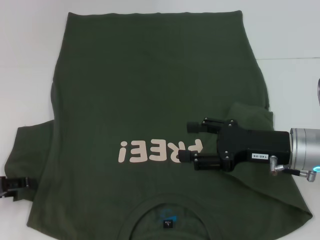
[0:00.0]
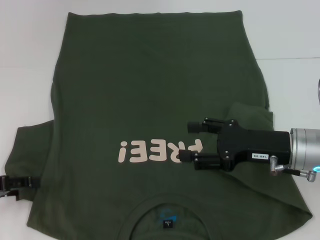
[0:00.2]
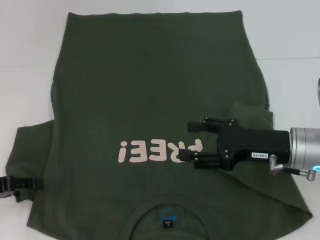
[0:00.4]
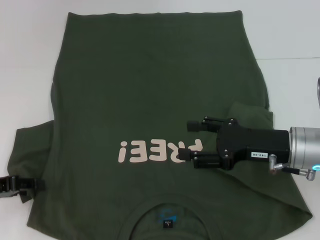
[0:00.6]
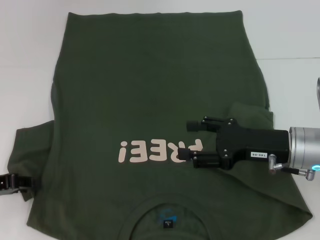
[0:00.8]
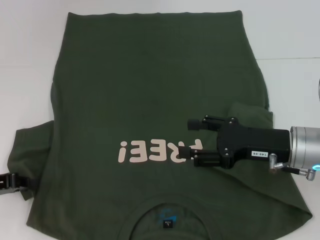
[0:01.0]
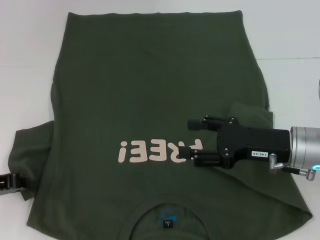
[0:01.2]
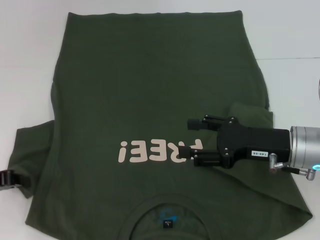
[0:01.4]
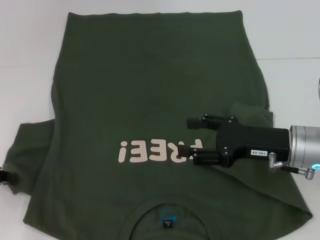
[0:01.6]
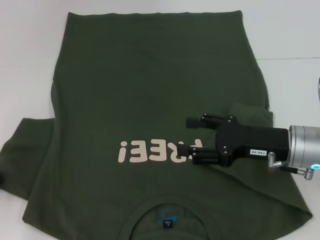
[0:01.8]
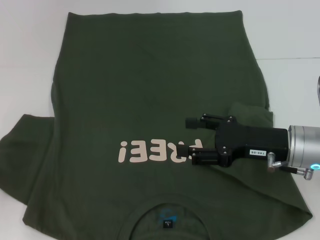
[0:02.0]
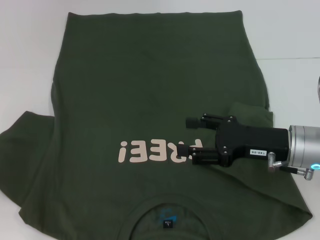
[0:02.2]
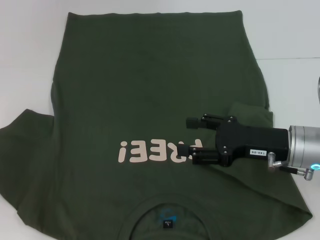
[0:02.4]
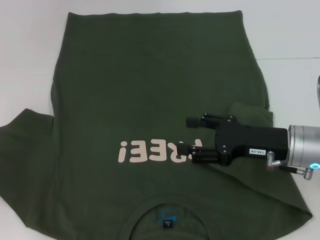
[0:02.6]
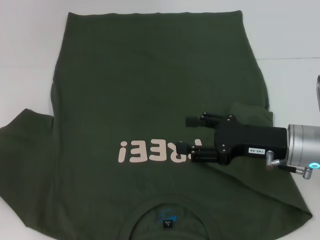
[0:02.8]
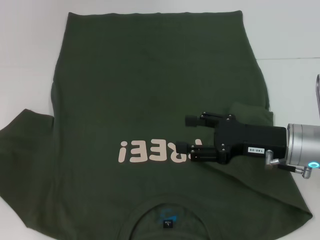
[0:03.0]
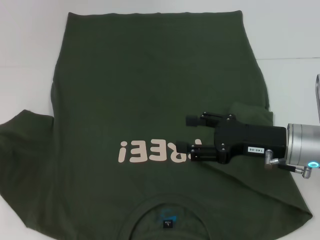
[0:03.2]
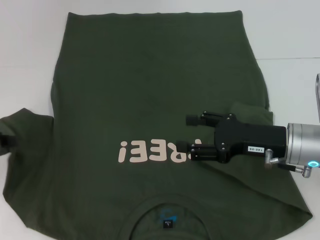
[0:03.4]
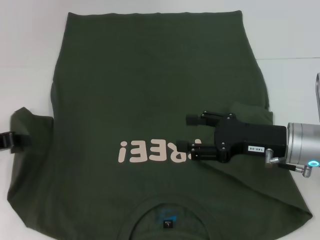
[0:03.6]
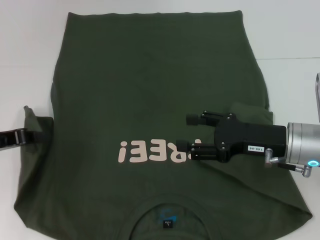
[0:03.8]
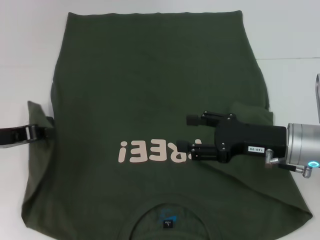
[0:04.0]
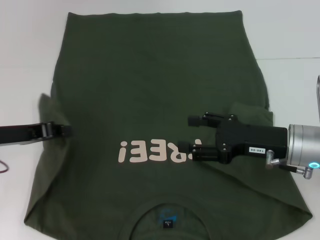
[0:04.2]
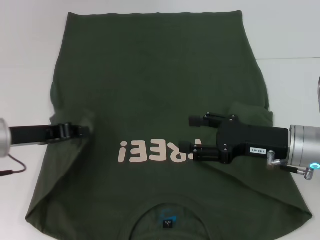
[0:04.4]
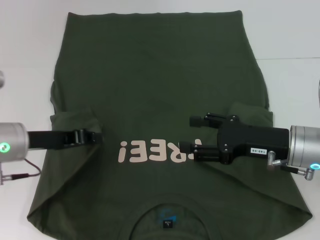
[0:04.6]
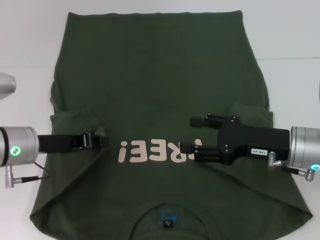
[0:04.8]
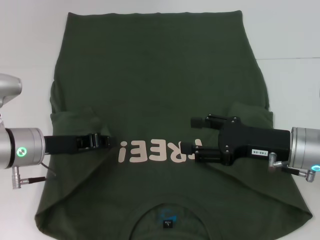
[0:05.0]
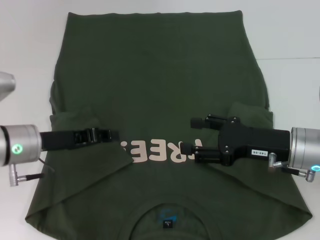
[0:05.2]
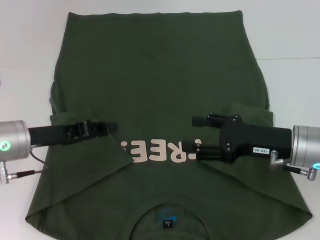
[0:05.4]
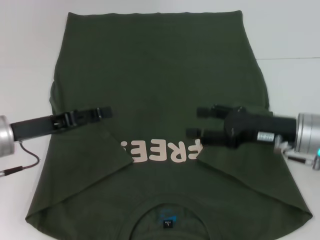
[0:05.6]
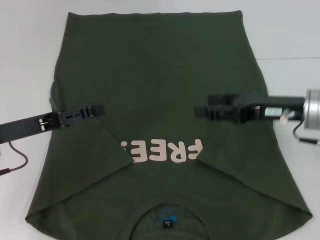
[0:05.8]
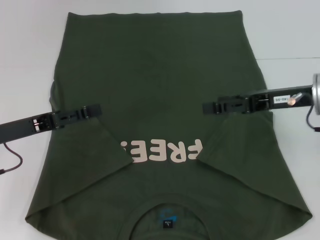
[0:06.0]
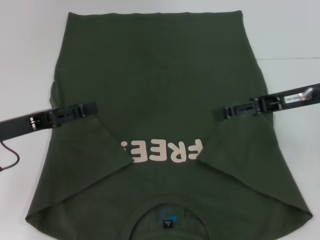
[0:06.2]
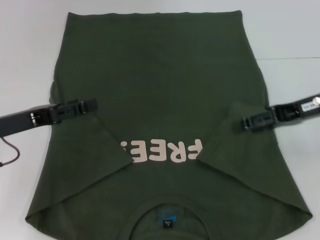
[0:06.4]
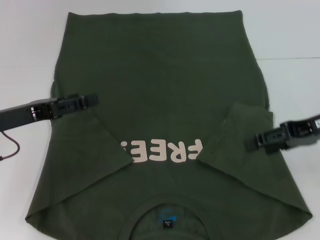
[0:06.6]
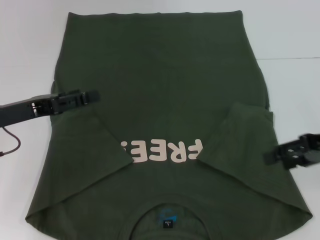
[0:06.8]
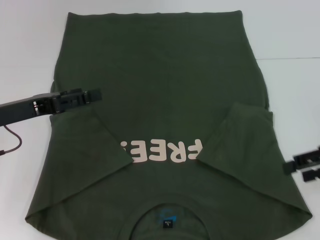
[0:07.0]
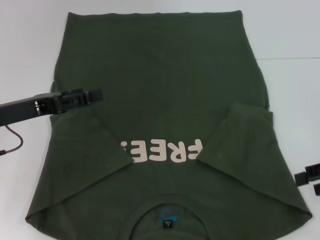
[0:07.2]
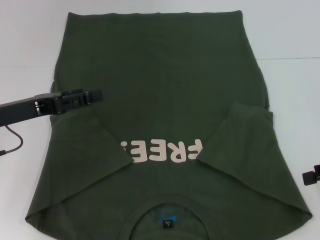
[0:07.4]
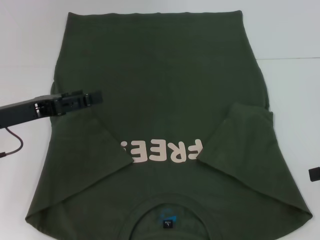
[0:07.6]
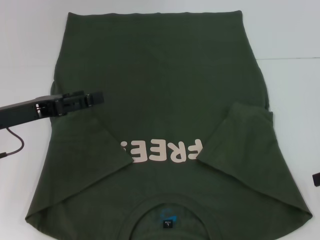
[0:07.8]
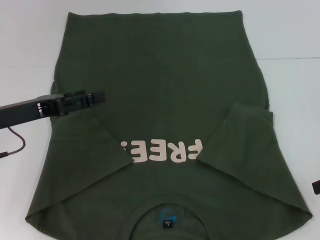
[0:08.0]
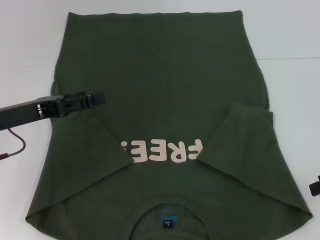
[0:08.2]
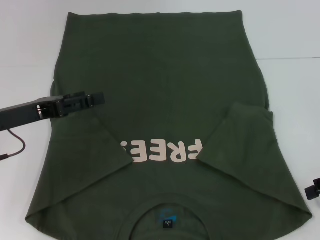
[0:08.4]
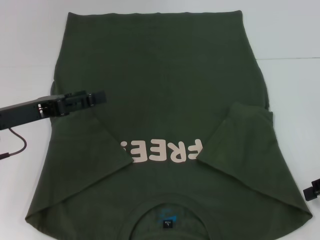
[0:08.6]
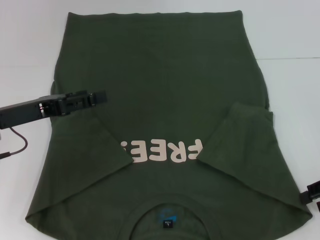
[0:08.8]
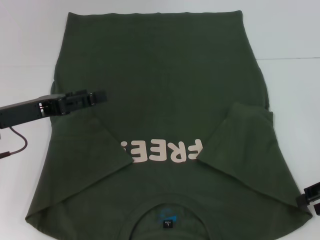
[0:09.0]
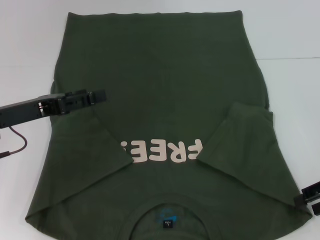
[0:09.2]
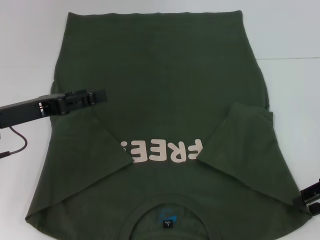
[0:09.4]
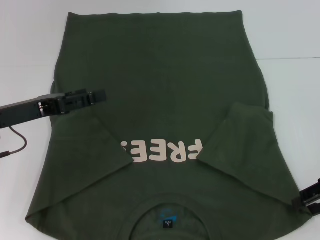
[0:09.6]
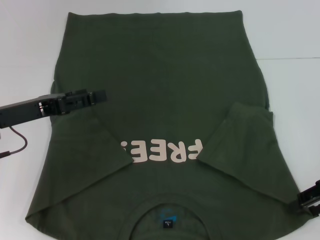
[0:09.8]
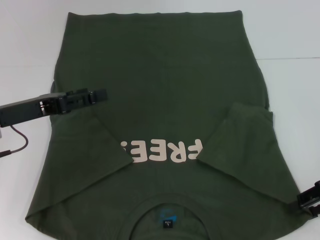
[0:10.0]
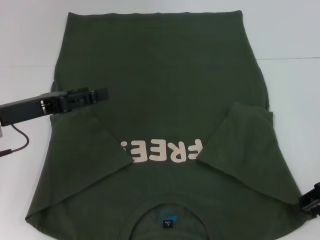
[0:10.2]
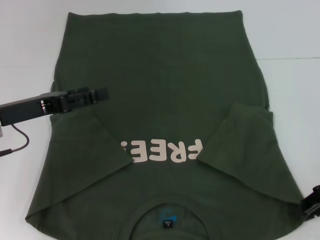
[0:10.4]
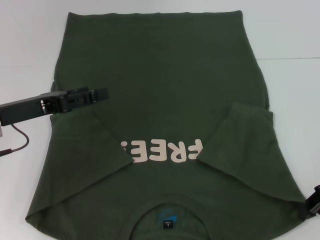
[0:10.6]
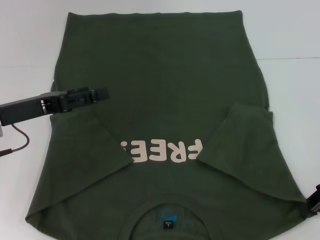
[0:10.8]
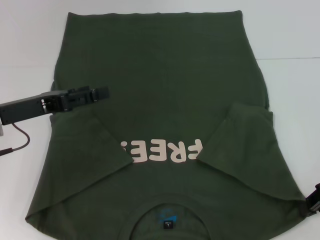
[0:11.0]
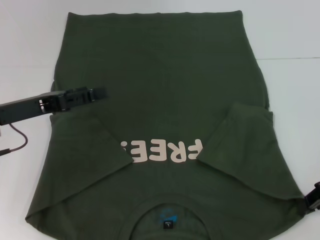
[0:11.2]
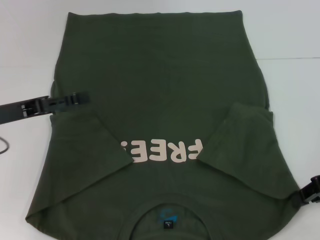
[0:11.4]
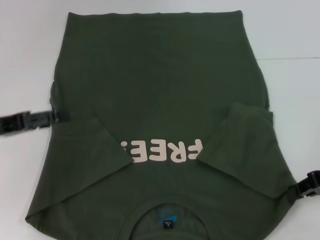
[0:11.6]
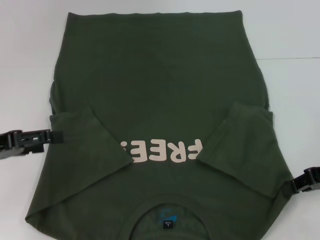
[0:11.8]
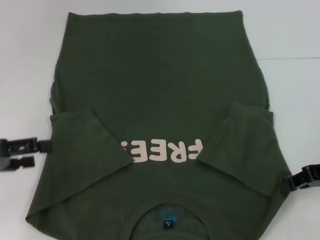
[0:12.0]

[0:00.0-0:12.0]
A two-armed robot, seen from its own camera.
Step, 0:00.0 to 0:05.2: Fold the bottom left sleeve with your left hand.
Step, 0:05.4 to 0:10.4: Grab the bottom right corner with your right hand.
0:00.0 to 0:01.6: The left gripper closes up.
0:01.6 to 0:03.0: There are only small adjustments of the grippers.
0:03.0 to 0:04.4: The left gripper moves to the right, about 10 cm.
0:04.4 to 0:06.0: The right gripper goes approximately 5 cm upward. Meanwhile the left gripper opens.
0:06.0 to 0:07.6: The right gripper heads to the right and backward, covering some 15 cm.
0:07.6 to 0:09.0: The grippers make only small movements.
0:09.0 to 0:10.4: The grippers make only small movements.
0:10.4 to 0:12.0: The left gripper is displaced to the left and backward by approximately 10 cm.

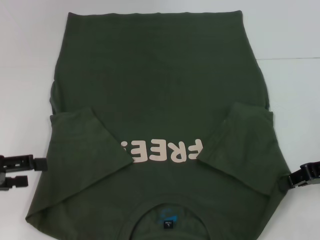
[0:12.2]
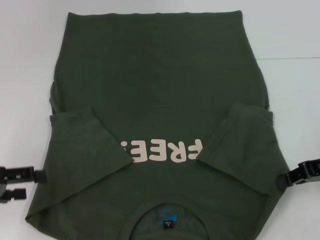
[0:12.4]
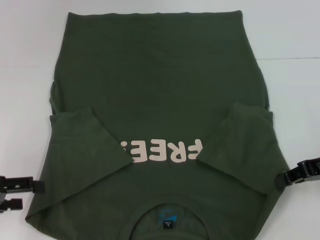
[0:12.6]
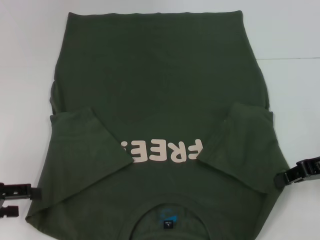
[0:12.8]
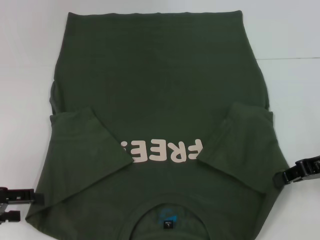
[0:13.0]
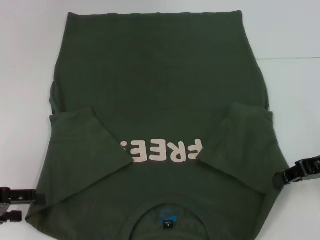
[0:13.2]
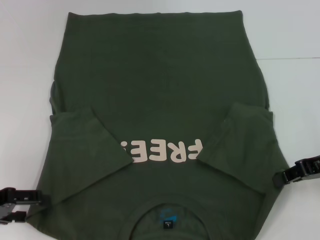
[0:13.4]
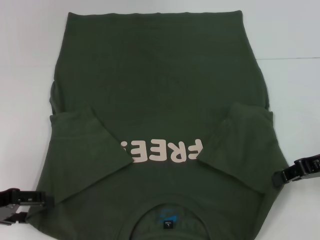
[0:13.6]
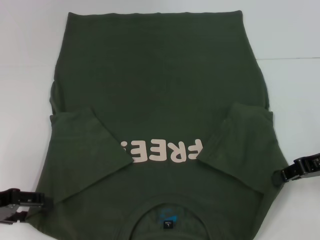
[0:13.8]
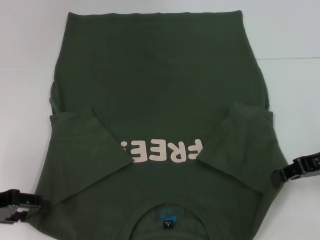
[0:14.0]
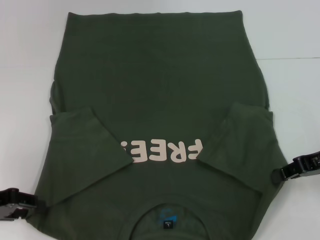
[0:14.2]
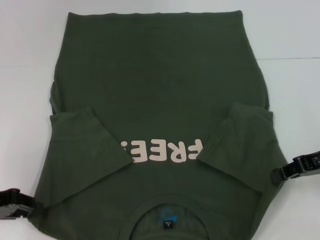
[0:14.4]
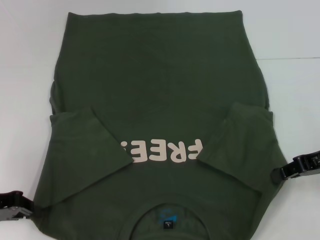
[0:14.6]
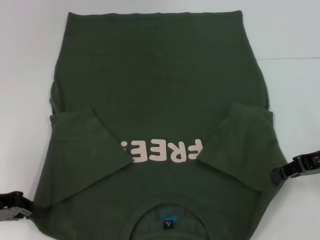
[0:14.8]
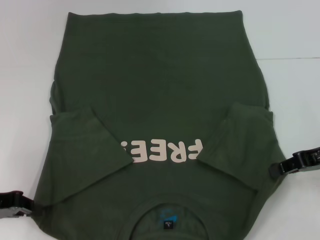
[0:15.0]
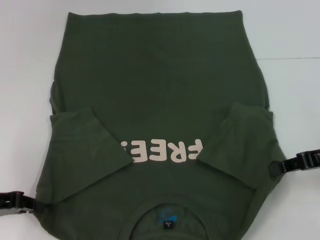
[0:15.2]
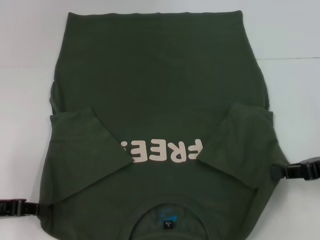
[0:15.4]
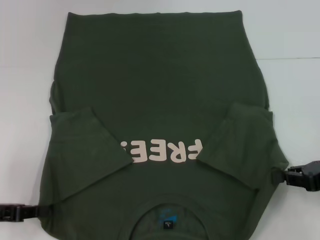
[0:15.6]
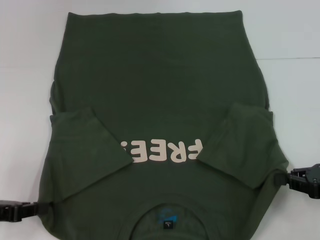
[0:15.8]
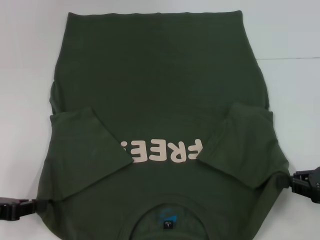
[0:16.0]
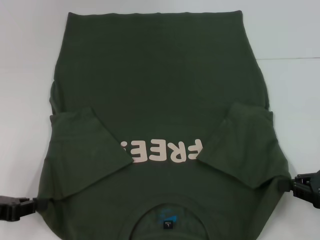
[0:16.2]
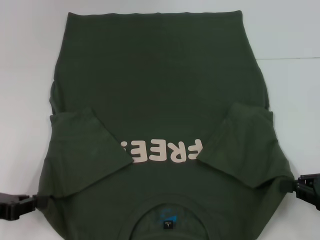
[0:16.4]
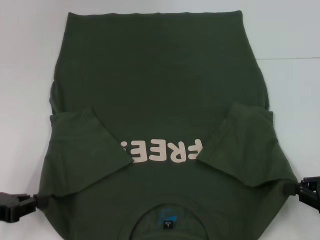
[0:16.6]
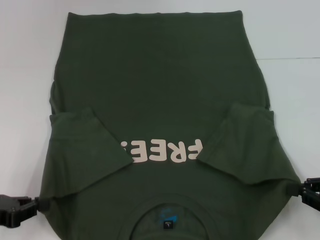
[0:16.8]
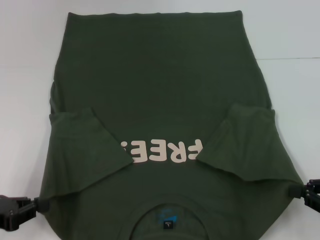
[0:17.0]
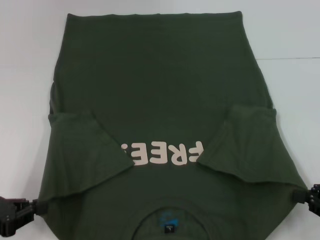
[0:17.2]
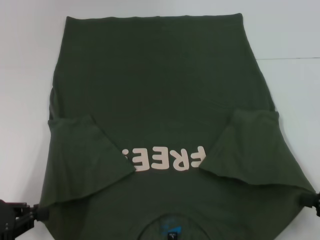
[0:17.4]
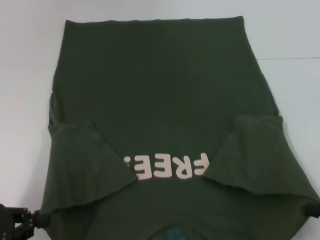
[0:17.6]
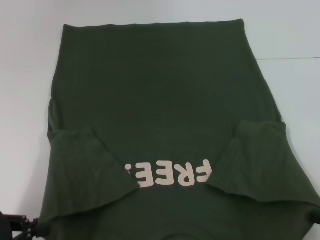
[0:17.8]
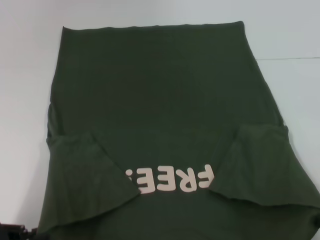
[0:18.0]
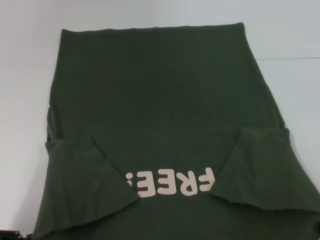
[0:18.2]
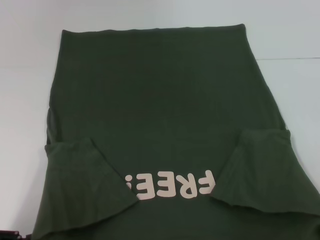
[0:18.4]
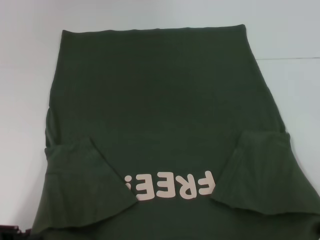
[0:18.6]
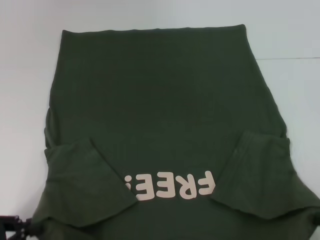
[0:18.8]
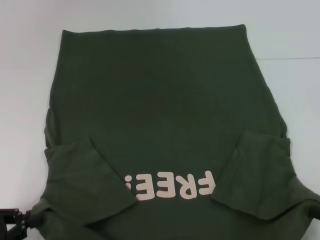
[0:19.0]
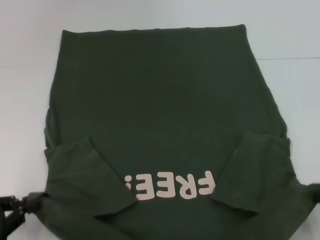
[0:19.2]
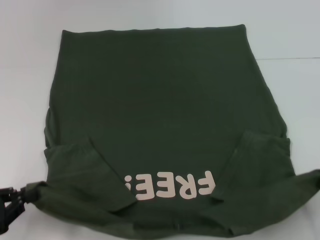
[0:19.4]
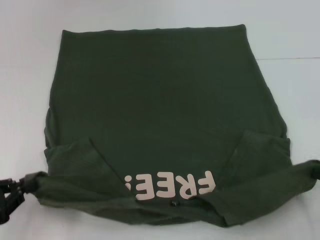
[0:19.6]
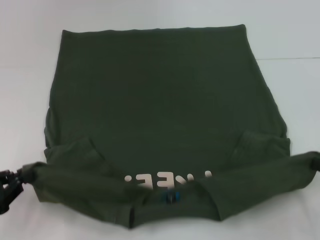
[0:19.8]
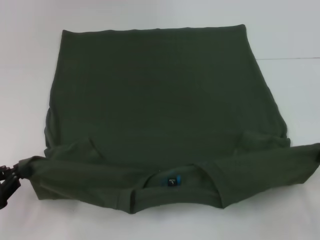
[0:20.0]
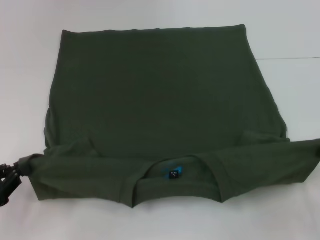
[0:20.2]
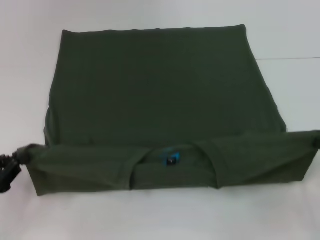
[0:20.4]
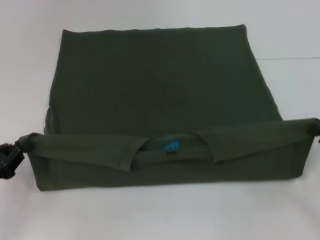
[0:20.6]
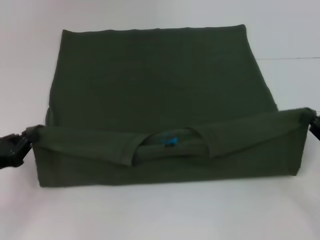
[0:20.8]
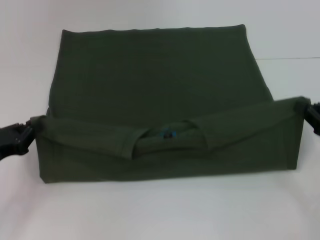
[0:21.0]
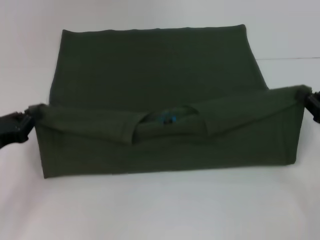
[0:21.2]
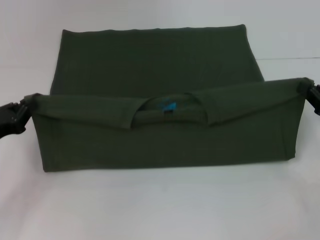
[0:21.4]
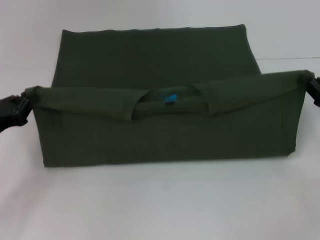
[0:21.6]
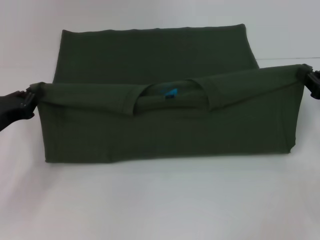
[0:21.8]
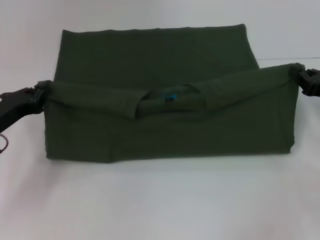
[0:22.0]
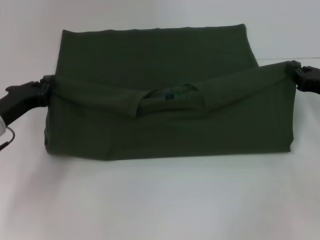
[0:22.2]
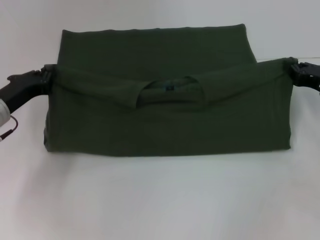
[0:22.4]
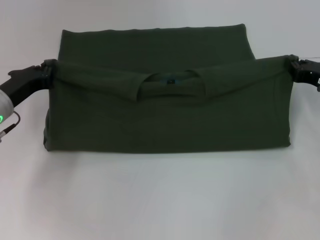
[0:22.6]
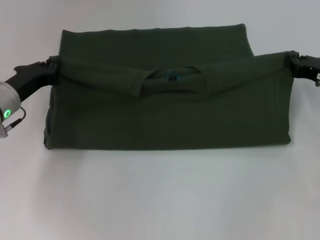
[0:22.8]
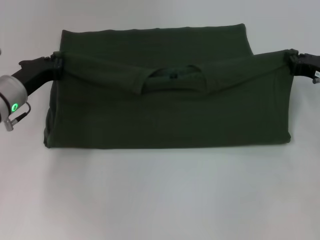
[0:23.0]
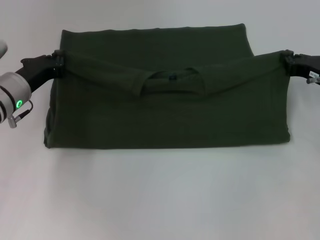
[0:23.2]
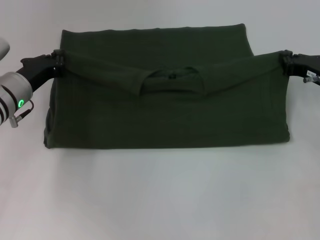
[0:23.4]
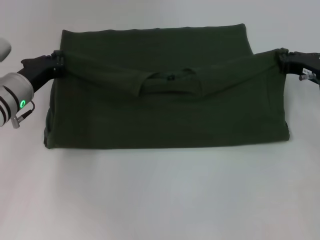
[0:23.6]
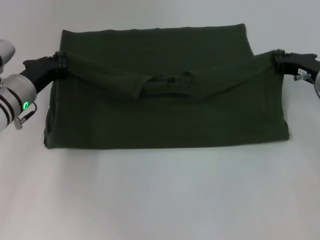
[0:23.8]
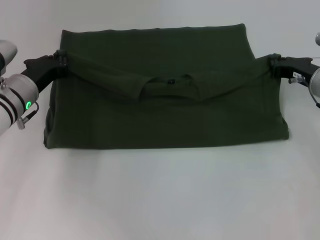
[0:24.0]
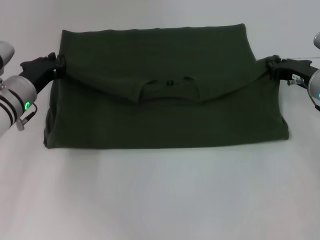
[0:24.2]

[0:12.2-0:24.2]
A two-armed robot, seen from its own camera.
Step, 0:12.2 to 0:14.6: Grab the bottom left corner with your left hand.
0:12.2 to 0:13.8: The grippers make only small movements.
0:13.8 to 0:15.2: The left gripper closes.
0:15.2 to 0:16.6: The right gripper shifts roughly 10 cm backward and downward.
0:16.6 to 0:18.2: The grippers both shift backward by approximately 10 cm.
0:18.2 to 0:19.8: The right gripper travels forward by approximately 5 cm.
0:19.8 to 0:21.2: Both grippers move forward, about 10 cm.
0:21.2 to 0:22.6: The grippers both shift forward by about 10 cm.
0:22.6 to 0:24.2: The right gripper shifts by about 5 cm.
